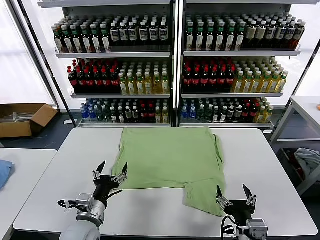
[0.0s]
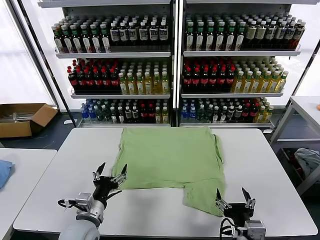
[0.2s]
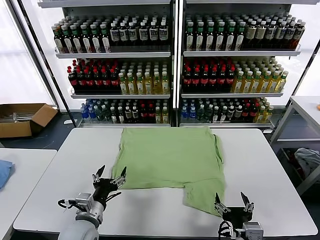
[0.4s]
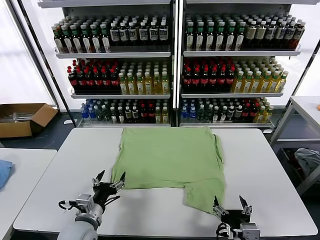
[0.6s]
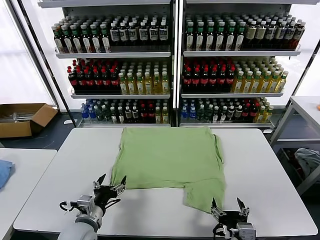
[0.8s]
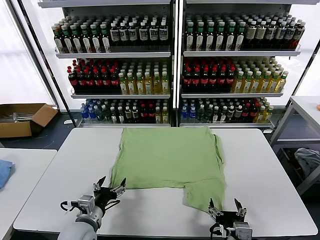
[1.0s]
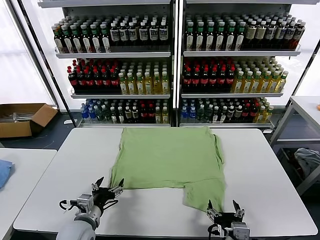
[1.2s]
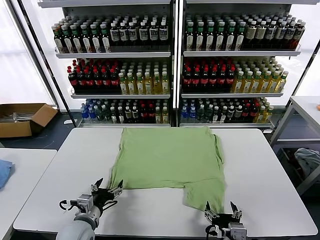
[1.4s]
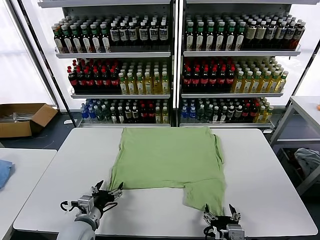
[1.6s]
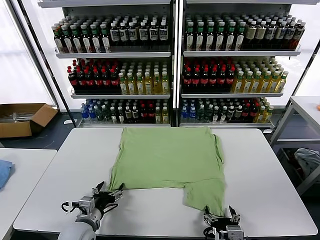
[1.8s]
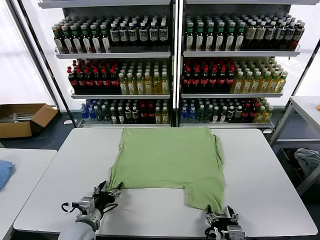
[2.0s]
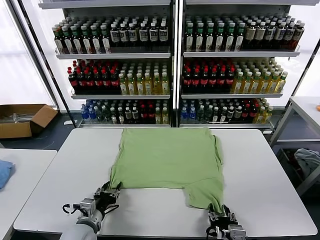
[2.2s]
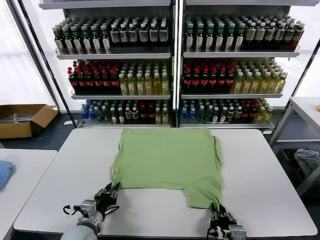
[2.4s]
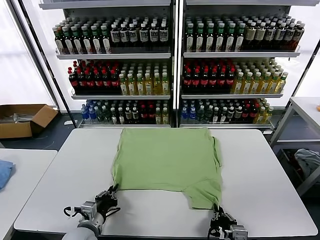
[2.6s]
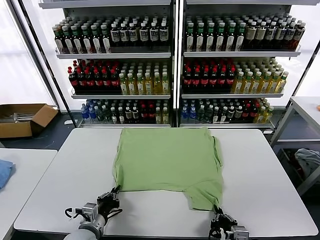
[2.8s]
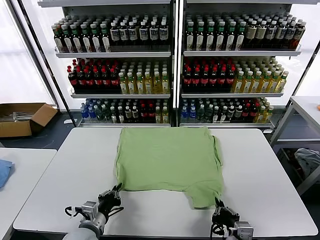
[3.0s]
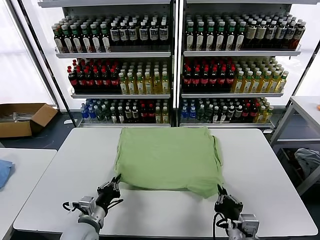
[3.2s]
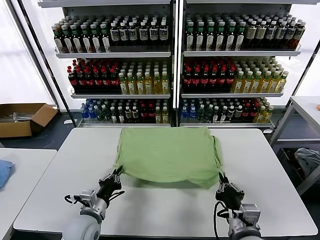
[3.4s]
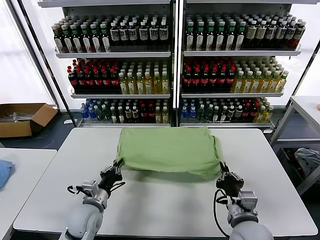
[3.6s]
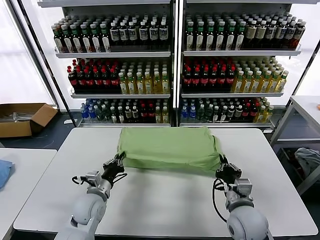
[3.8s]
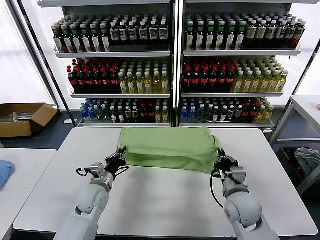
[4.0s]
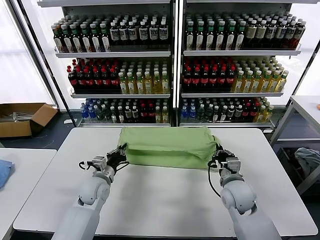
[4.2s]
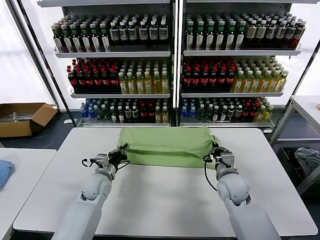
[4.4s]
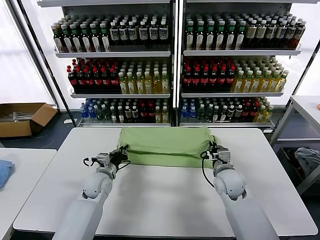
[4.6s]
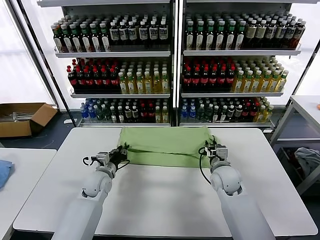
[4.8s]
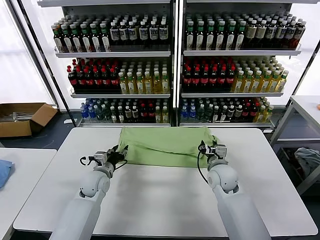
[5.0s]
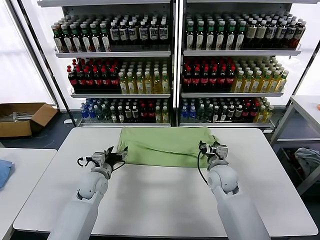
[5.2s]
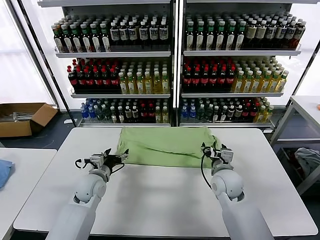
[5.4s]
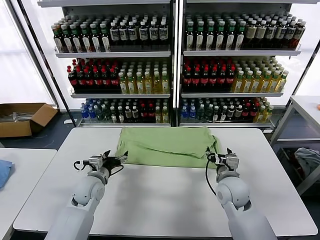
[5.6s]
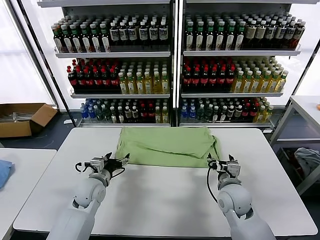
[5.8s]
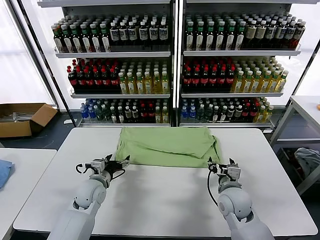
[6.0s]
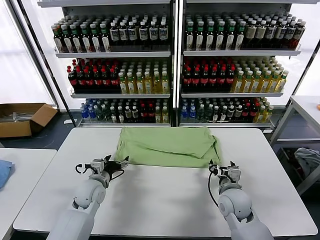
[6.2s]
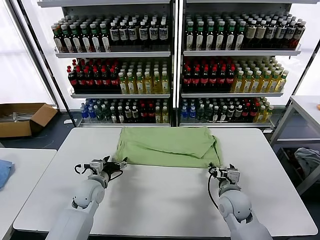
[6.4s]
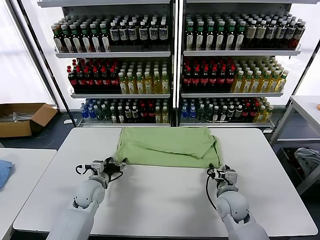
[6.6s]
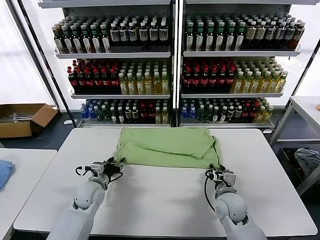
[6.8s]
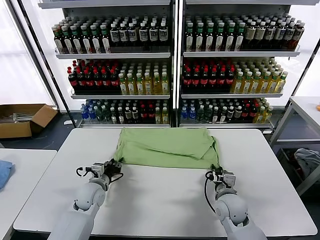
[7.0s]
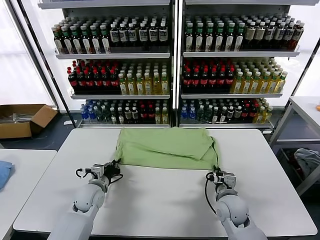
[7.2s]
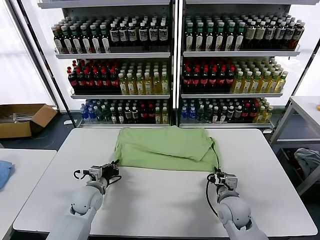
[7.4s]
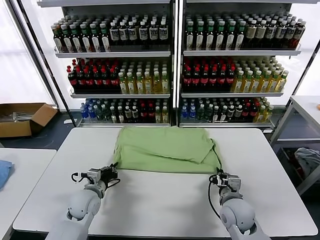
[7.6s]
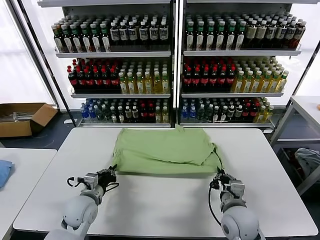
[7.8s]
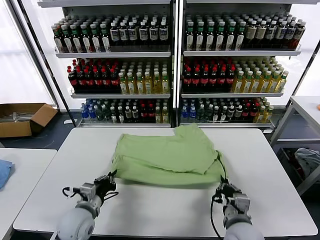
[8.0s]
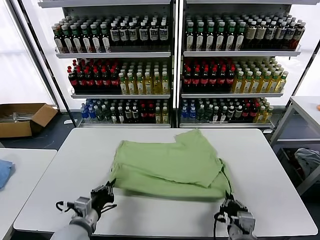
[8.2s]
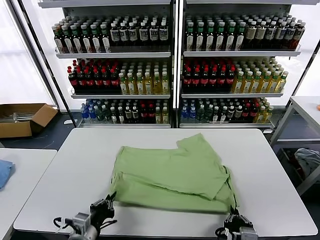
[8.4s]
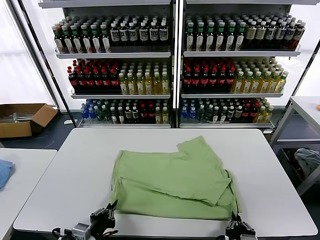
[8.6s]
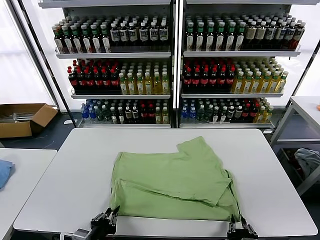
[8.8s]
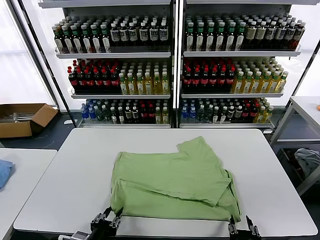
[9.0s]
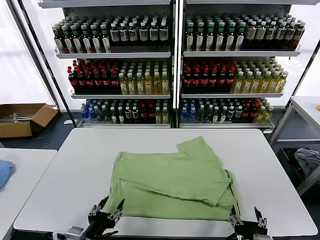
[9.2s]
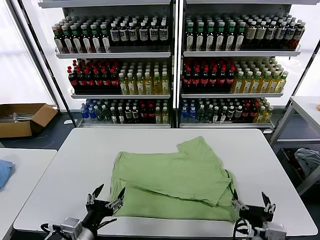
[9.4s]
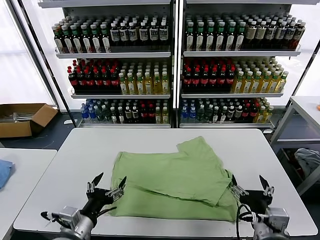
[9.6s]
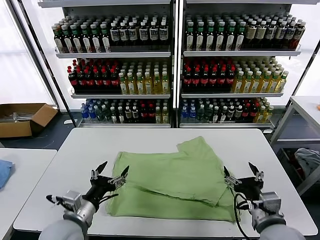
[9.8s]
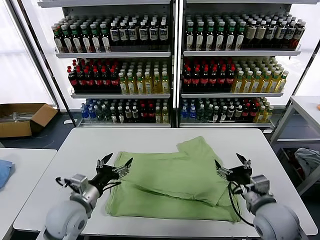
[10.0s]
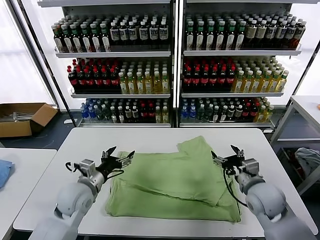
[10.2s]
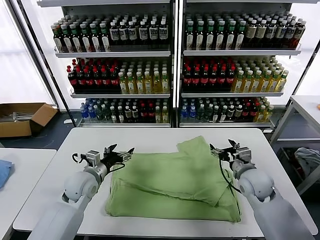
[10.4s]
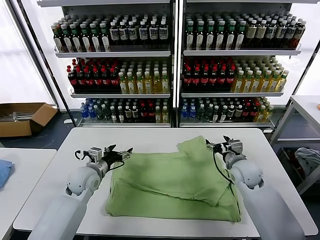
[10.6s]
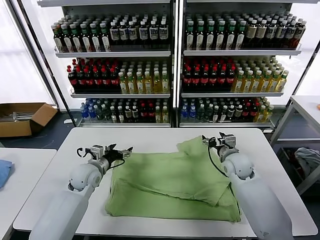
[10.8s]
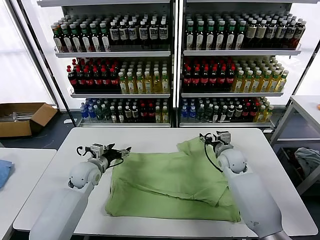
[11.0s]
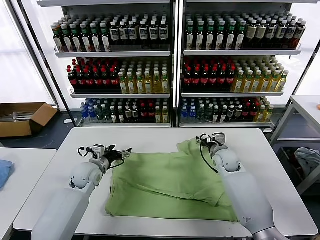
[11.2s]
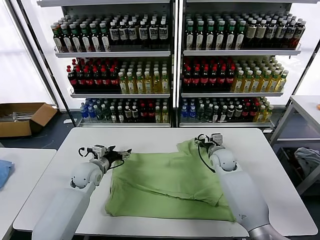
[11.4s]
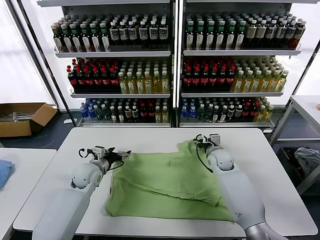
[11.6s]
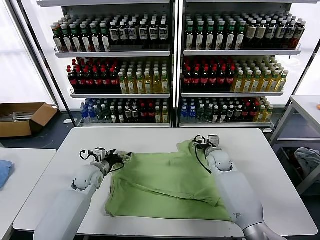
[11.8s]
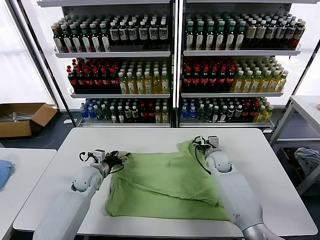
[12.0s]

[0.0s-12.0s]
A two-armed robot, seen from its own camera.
Task of the whole recording: fold and organize the clothes.
Step, 0.0s to 2.6s: use both grippers simultaneously to clamp the lower edge of the clothing fabric.
Step, 3.0s to 5.2s: use both grippers to drag the lower edge of the fabric forward and fold it over the upper edge.
Step, 5.4s to 9.0s: Drag the clothes downward with both gripper.
1.6s to 3.0s: The right gripper closes. Meanwhile the left gripper closes up.
3.0s to 4.4s: The grippers both shift forward by roughly 20 cm.
4.4s to 6.0s: The left gripper opens, while the right gripper goes some 5 cm backward, and opens its fingers.
6.0s to 7.6s: The left gripper closes its fingers, while the right gripper moves backward, roughly 5 cm, and closes its fingers.
7.6s to 9.0s: The two grippers go roughly 20 cm backward. The right gripper opens up; the left gripper opens its fingers.
9.0s to 10.4s: Both grippers move forward, some 30 cm. The left gripper opens up.
10.4s to 12.0s: The left gripper goes some 5 cm forward; the right gripper is displaced forward, downward and to the left by roughly 15 cm.

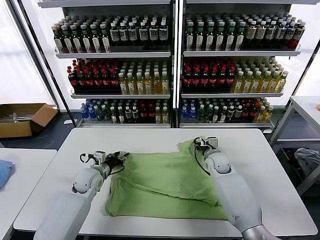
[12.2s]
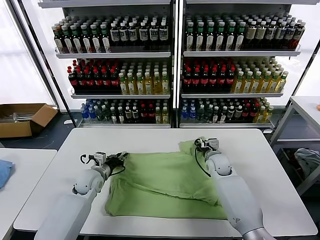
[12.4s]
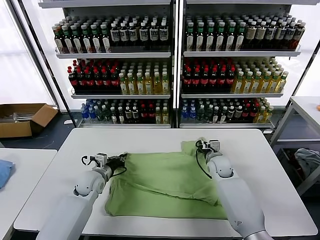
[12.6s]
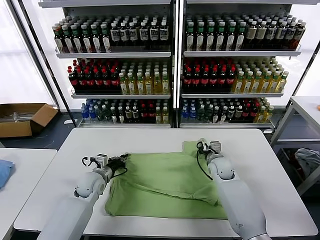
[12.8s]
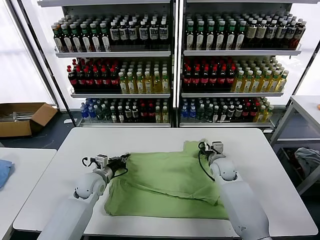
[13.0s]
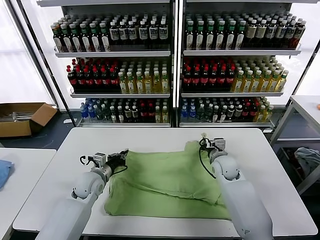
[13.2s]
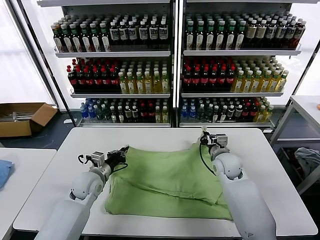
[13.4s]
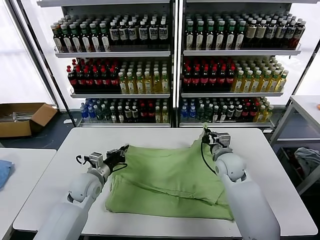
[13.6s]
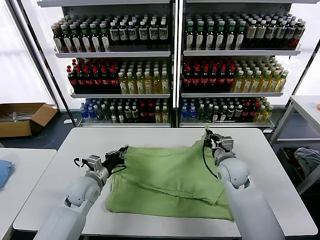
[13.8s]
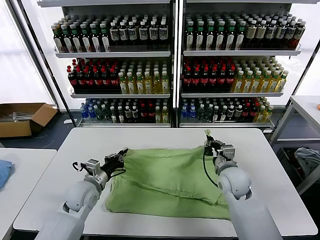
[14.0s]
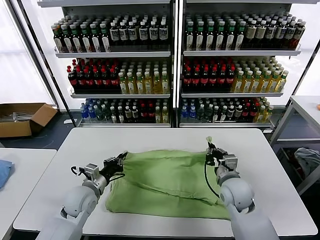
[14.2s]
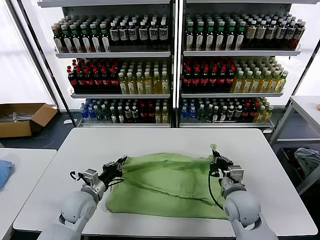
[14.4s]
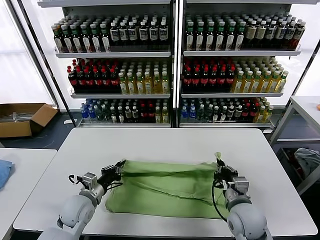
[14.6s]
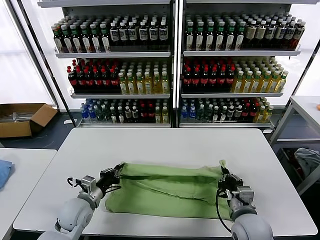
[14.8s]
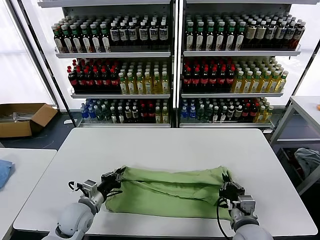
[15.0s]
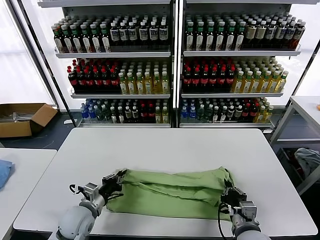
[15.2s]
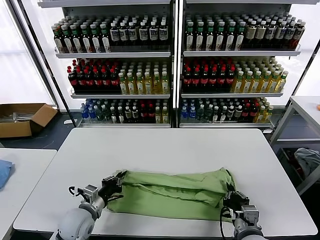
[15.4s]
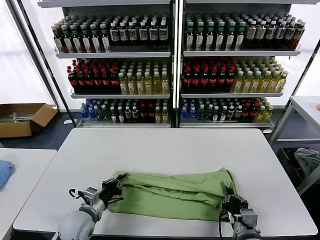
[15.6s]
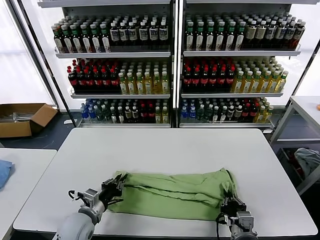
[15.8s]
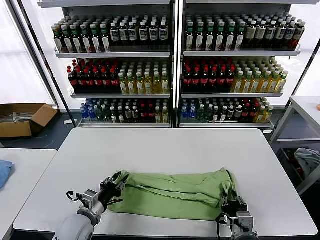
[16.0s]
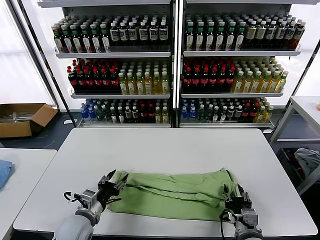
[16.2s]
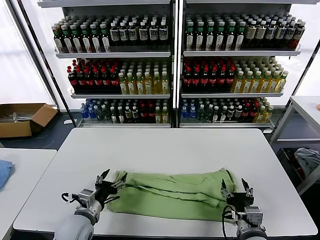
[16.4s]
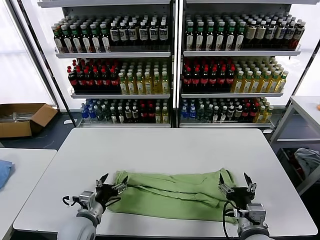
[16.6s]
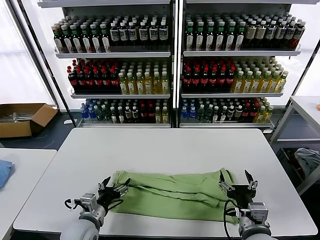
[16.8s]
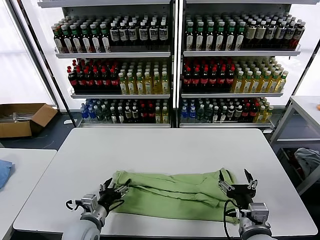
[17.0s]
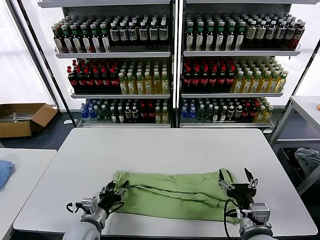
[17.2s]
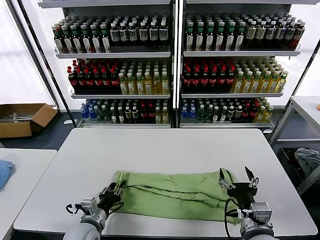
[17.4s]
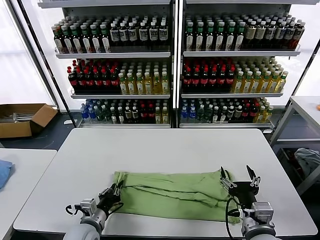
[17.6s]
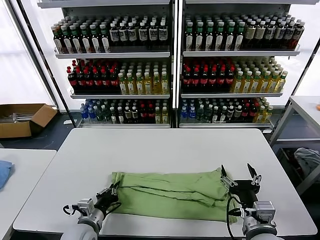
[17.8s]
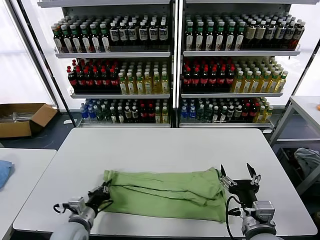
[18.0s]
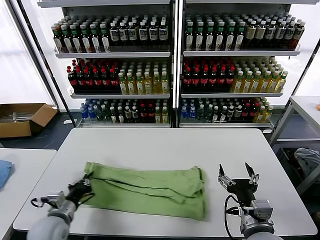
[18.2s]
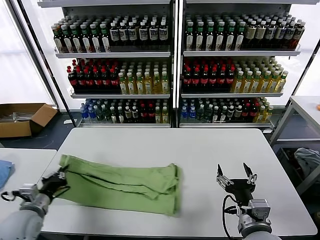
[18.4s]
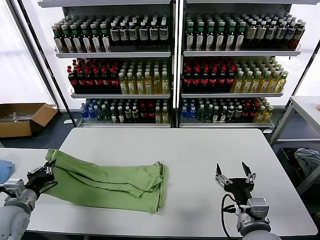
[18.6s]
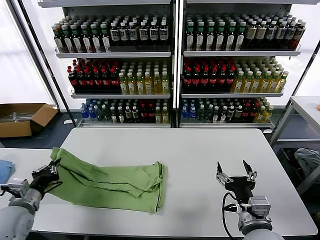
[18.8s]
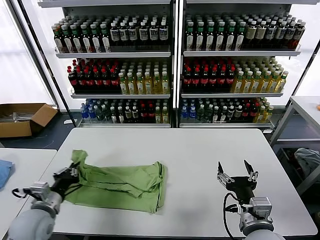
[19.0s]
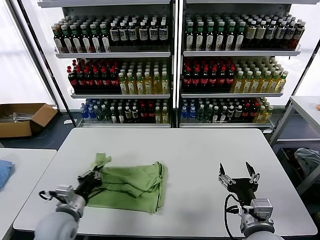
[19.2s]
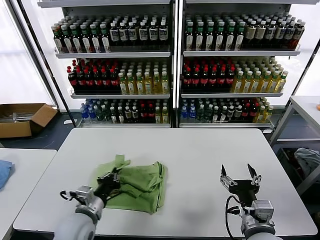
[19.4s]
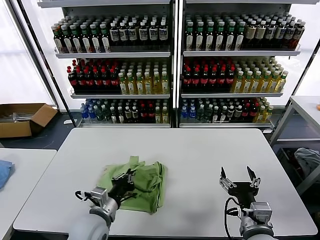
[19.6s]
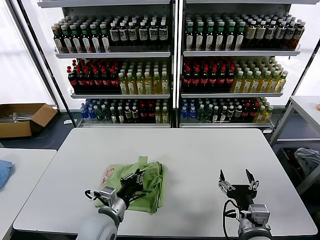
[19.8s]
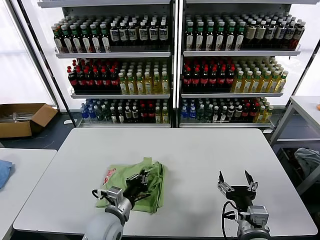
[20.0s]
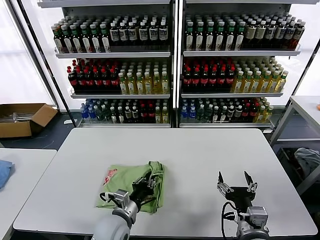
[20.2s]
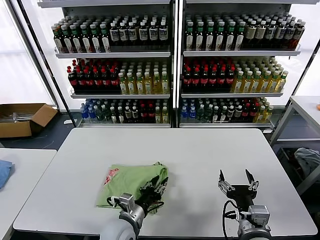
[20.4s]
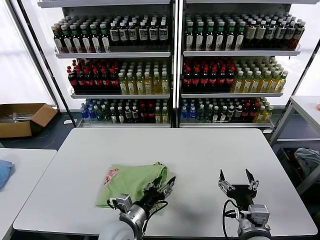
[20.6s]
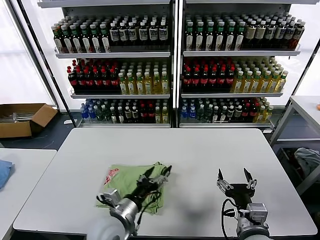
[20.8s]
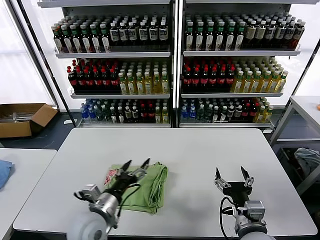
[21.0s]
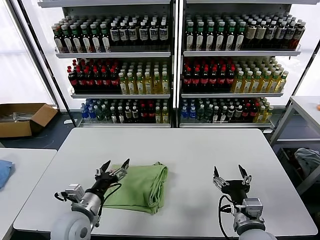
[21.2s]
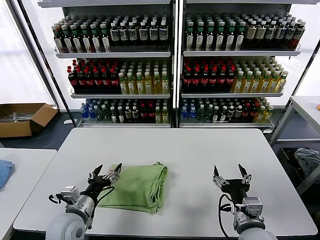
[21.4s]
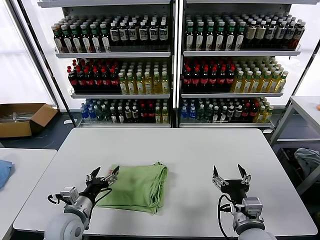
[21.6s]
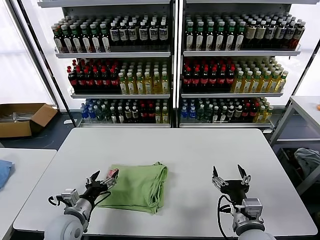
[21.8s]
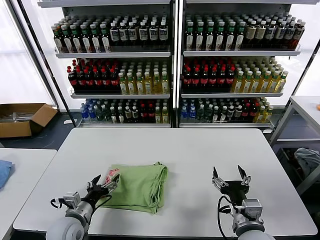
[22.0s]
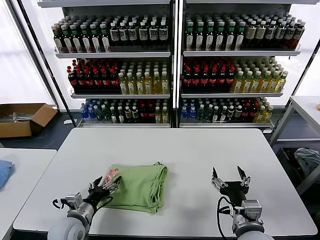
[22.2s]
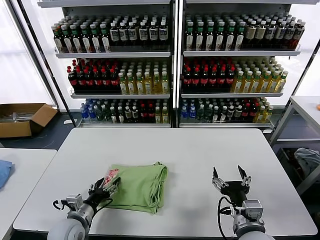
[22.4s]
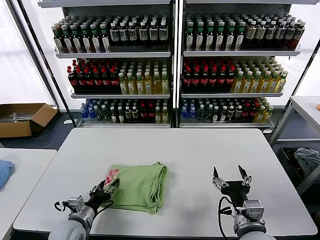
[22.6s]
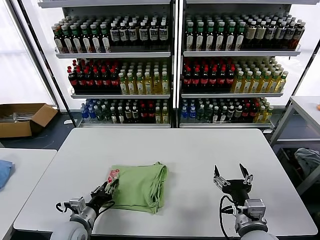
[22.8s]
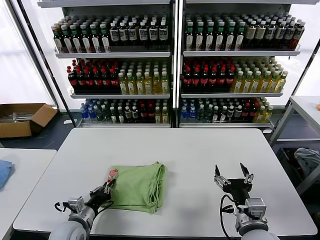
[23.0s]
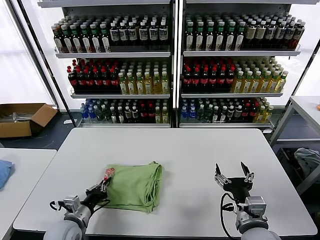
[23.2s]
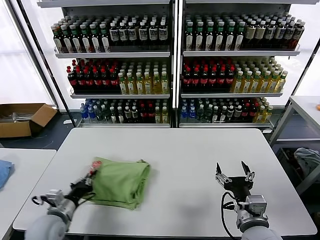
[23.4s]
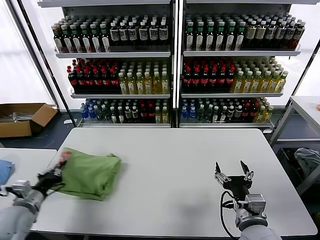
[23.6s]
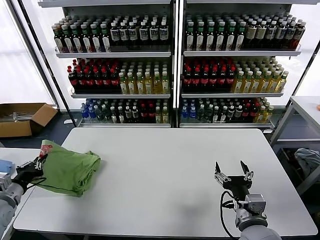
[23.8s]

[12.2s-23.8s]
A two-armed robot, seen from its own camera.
Task of the whole recording: fold and organize the clothes.
Step, 13.0s to 16.2s: use both grippers to drag the upper edge of the fabric backward and fold it over the lower edge.
Step, 16.4s to 17.6s: use the left gripper to clamp the left edge of the fabric.
Step, 18.0s to 20.4s: use the left gripper to drag the left edge of the fabric to the left and folds it over the right edge.
12.2s to 13.6s: The left gripper ends up about 5 cm from where it was, and closes, while the right gripper moves upward and backward, some 10 cm, and closes up.
13.6s to 15.0s: The right gripper shifts about 20 cm backward. The left gripper is displaced backward by about 10 cm.
15.0s to 16.6s: The left gripper changes place by some 5 cm, and opens up; the right gripper opens.
16.6s to 18.0s: The left gripper closes.
18.0s to 19.4s: The left gripper is displaced upward by some 5 cm, and goes to the left and returns, about 15 cm each way.
19.4s to 21.0s: The left gripper goes approximately 5 cm to the right, and opens its fingers.
21.0s to 22.4s: The left gripper moves to the left and downward, some 15 cm.
22.4s to 23.8s: The left gripper shifts some 20 cm to the left and upward, and closes its fingers.
